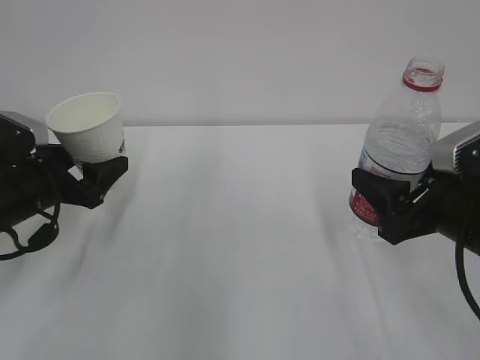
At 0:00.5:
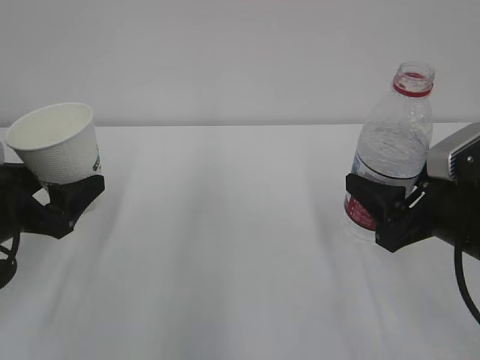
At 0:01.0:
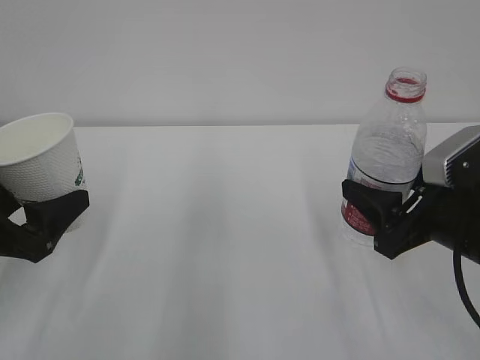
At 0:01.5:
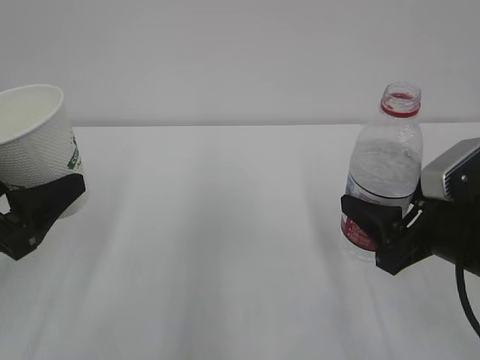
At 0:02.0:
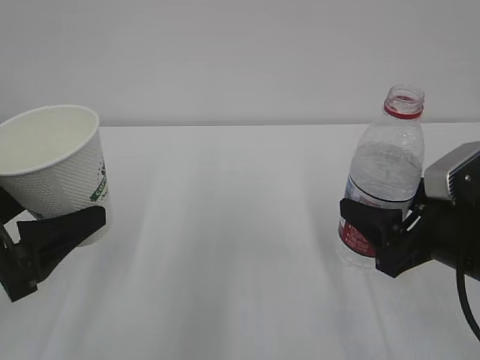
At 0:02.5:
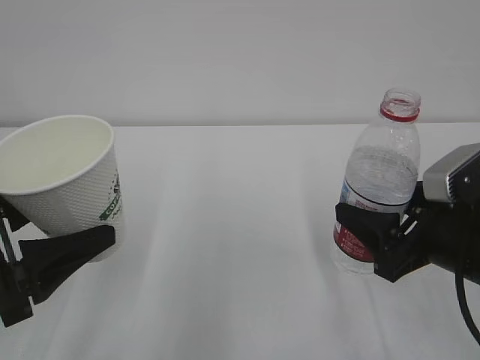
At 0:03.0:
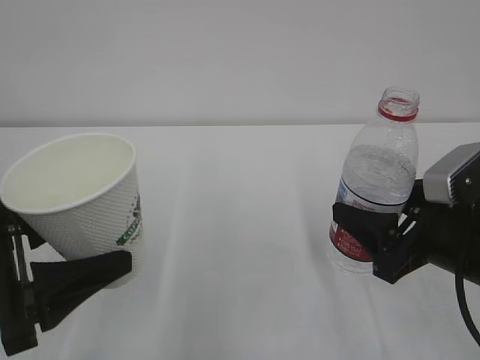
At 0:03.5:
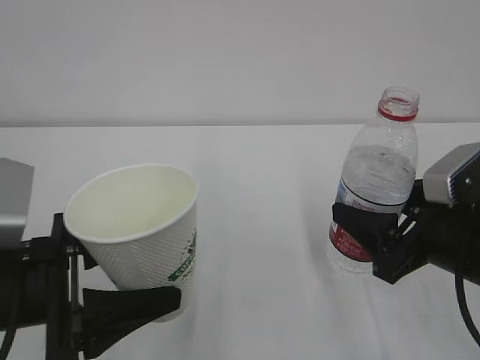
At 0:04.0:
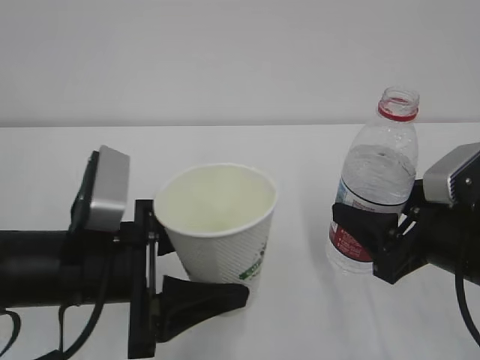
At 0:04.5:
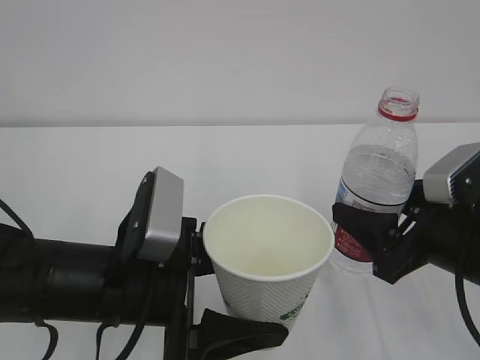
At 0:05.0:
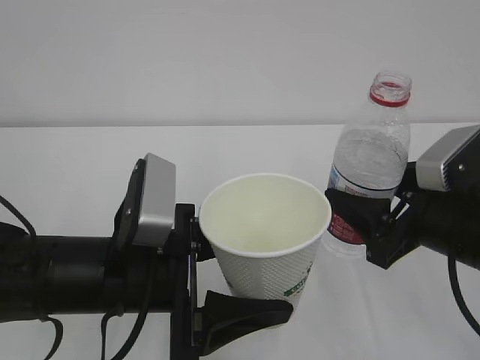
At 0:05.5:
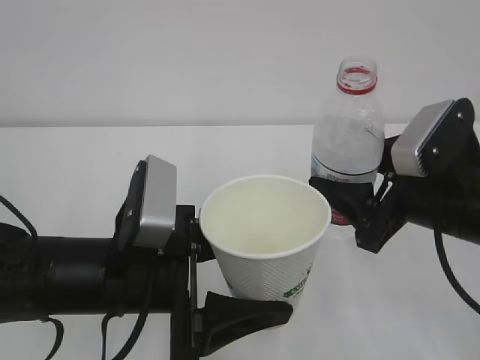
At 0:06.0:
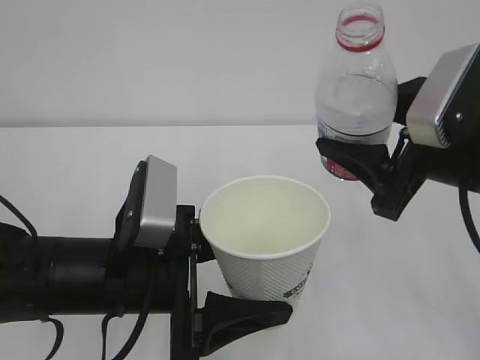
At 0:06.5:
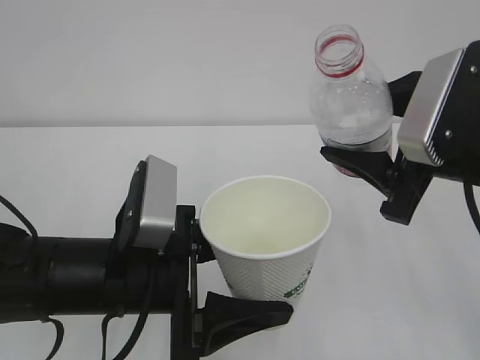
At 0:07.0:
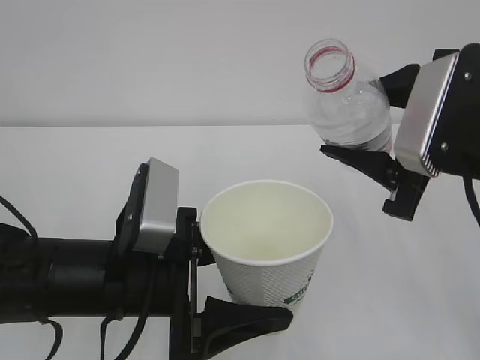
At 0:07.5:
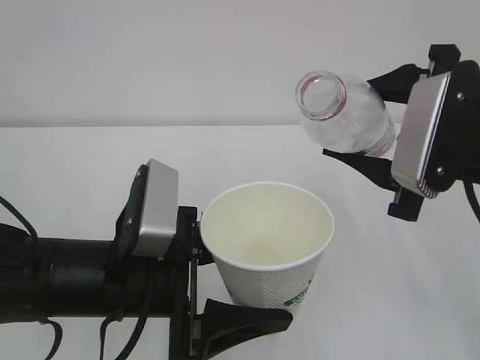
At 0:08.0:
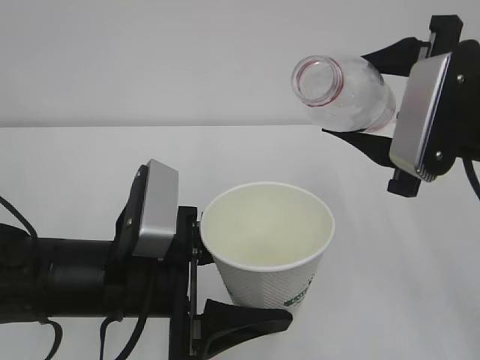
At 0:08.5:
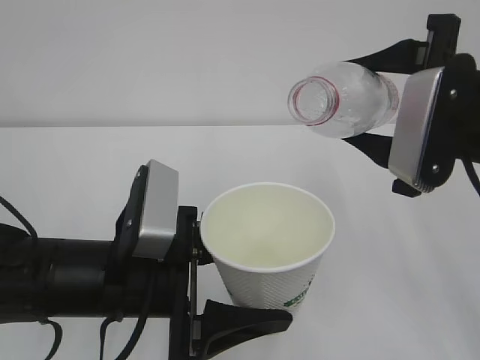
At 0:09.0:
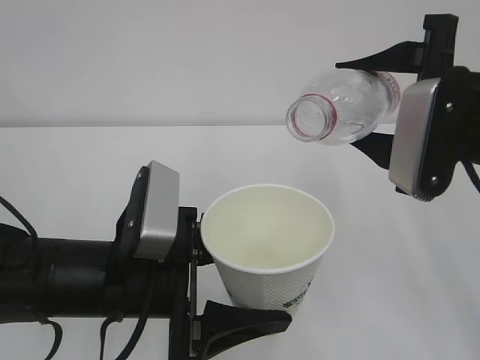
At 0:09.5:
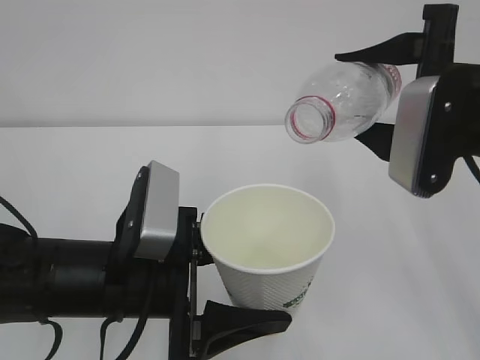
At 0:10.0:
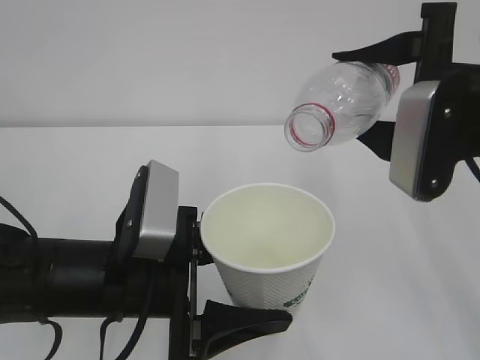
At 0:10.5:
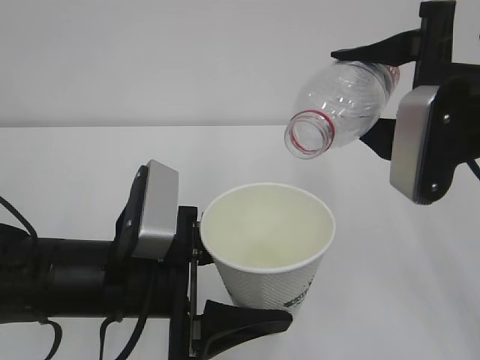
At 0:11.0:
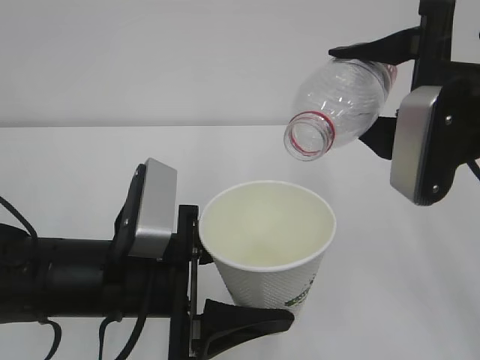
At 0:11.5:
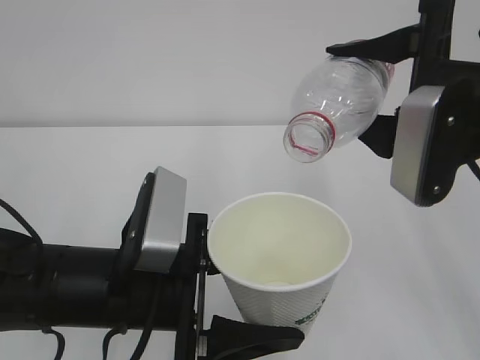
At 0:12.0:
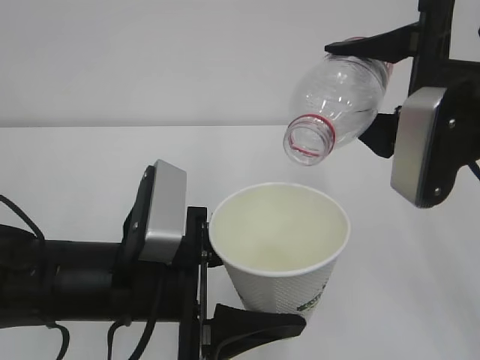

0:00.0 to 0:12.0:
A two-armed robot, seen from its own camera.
0:00.0 to 0:02.0: The left gripper moves backward and upward, about 15 cm.
0:02.0 to 0:04.0: The left gripper is displaced to the right by roughly 10 cm.
0:04.0 to 0:06.0: The right gripper heads upward, covering about 10 cm.
0:08.0 to 0:10.0: The grippers move only a little.
0:10.0 to 0:12.0: The grippers move only a little.

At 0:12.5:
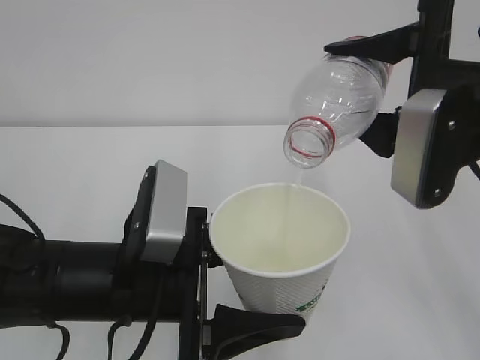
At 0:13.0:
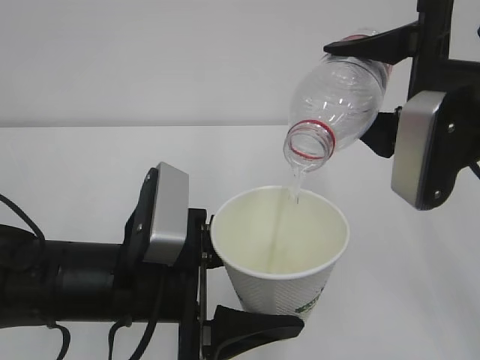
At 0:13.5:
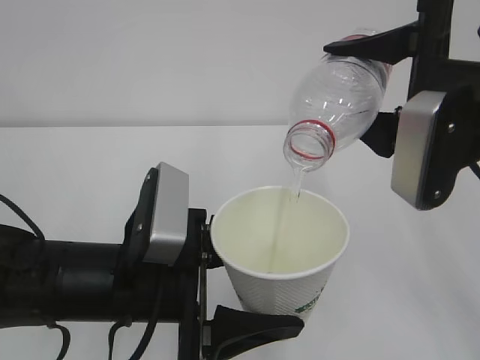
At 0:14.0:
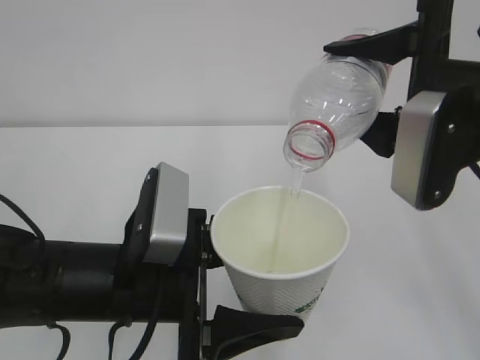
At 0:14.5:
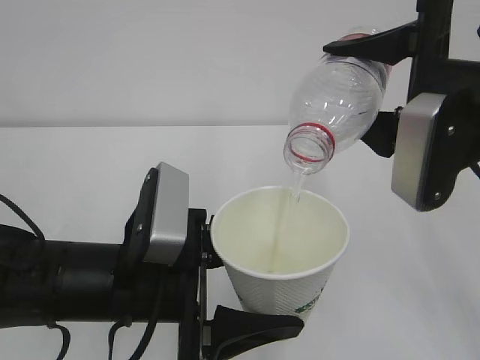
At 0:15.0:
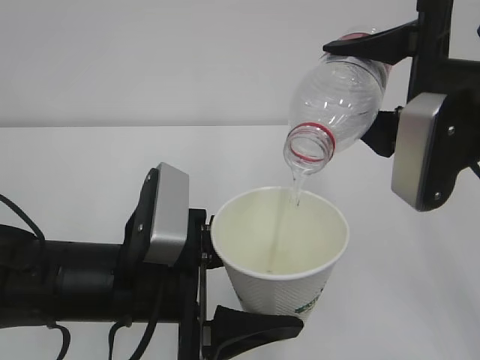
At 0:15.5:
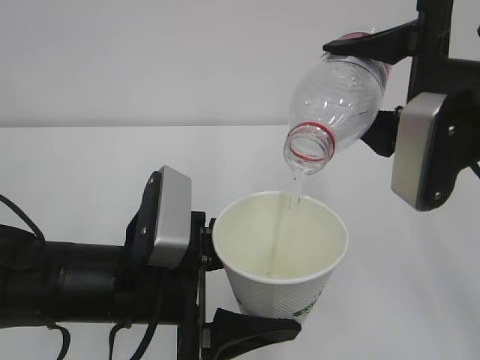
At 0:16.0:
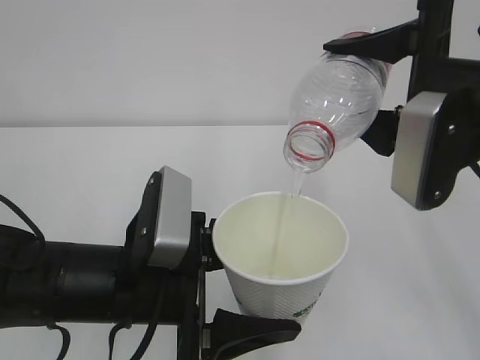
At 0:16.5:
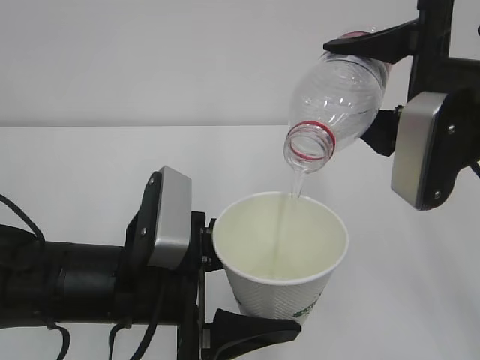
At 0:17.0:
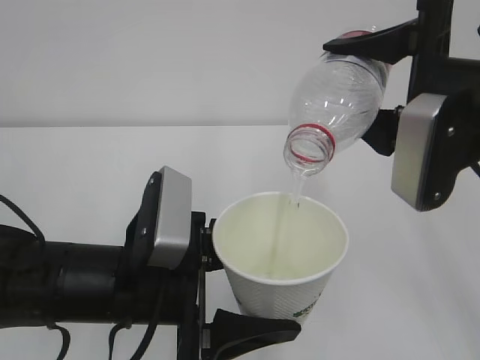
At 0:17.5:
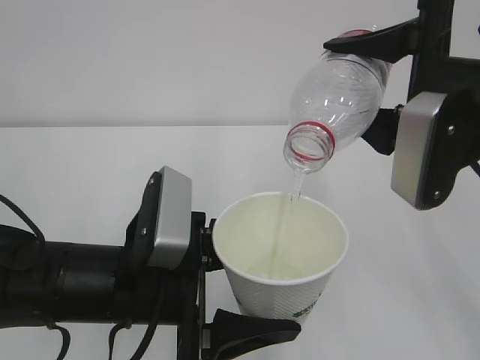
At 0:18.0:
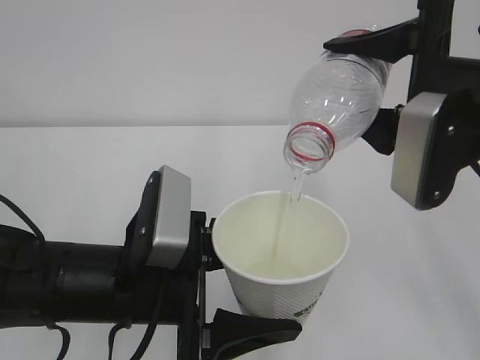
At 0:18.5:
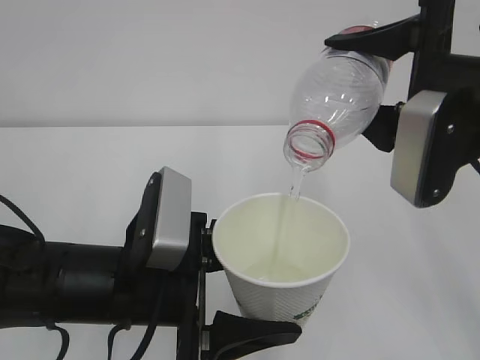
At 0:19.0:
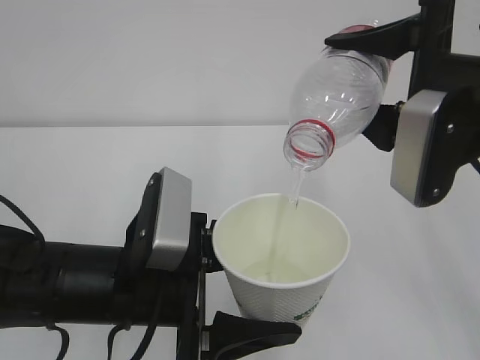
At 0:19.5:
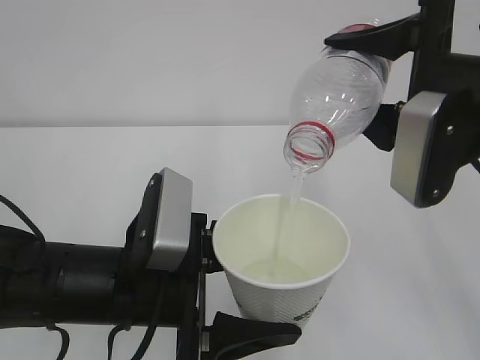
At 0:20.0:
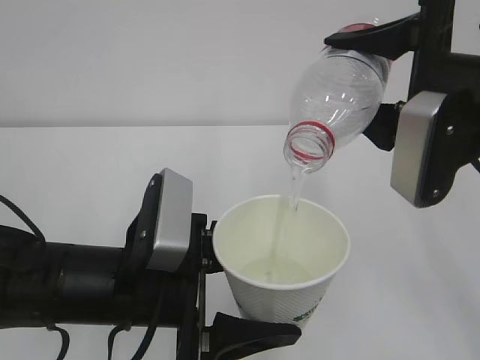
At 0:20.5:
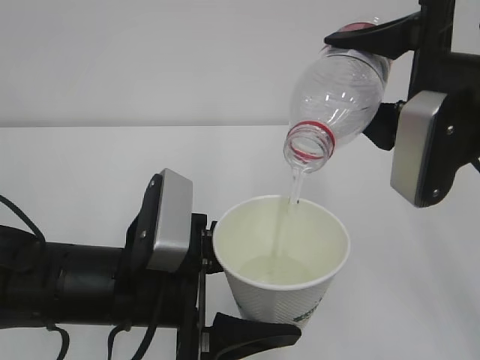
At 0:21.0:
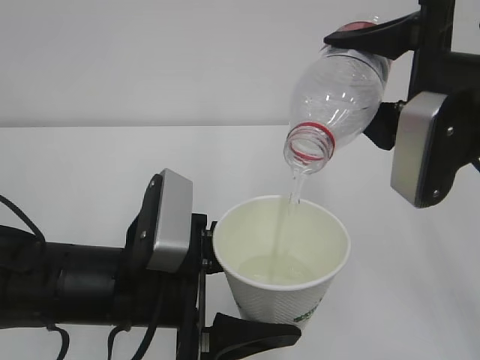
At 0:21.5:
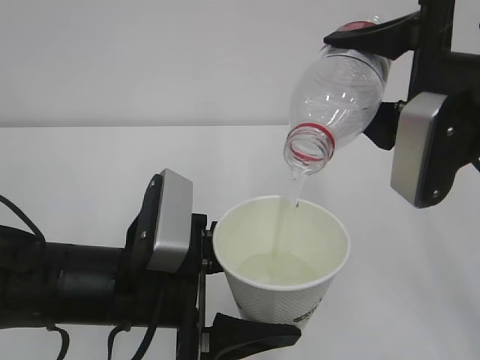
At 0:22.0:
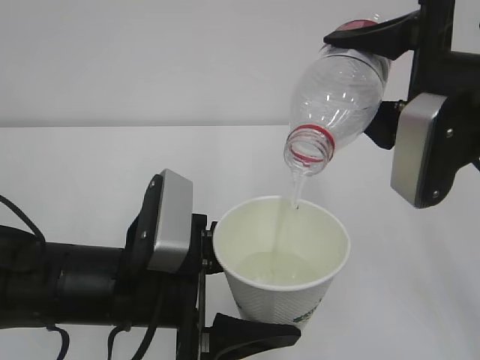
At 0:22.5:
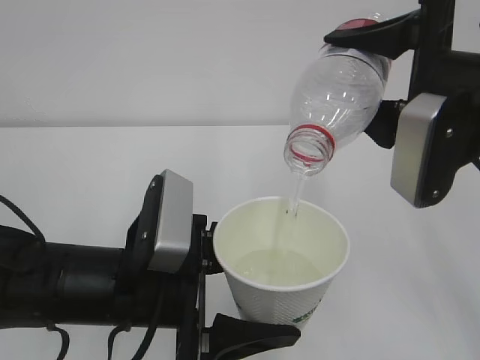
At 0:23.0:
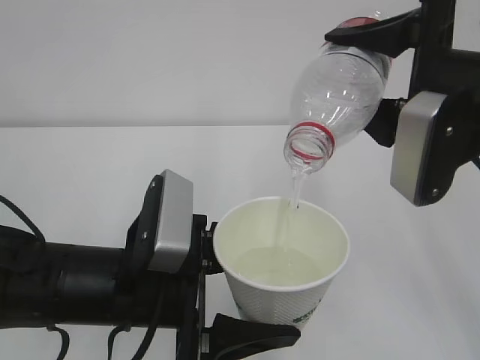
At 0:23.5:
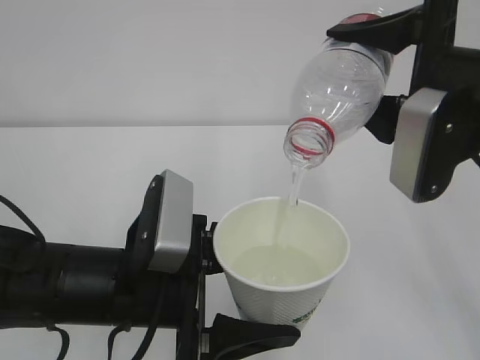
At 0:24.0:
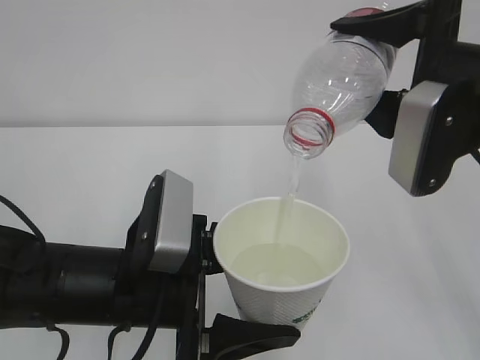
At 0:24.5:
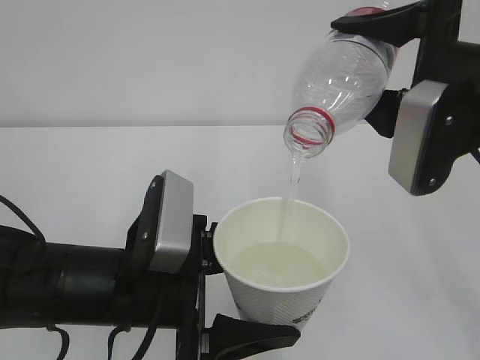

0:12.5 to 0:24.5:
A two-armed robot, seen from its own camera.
0:12.5 to 0:18.5: Both grippers stay about where they are.
0:18.5 to 0:24.5: Both grippers stay about where they are.

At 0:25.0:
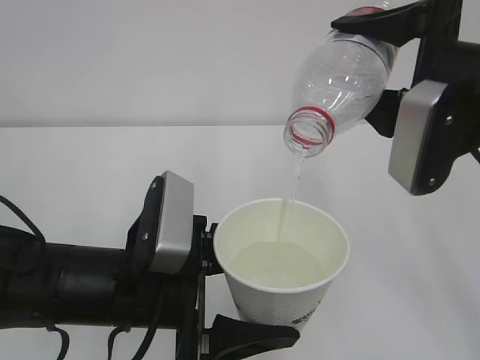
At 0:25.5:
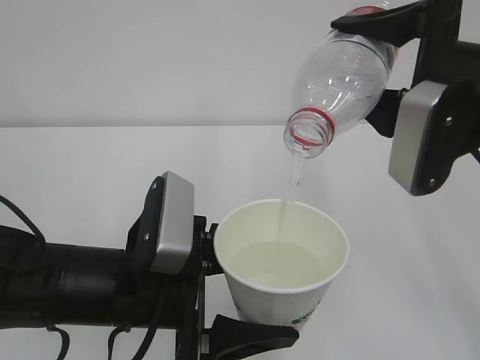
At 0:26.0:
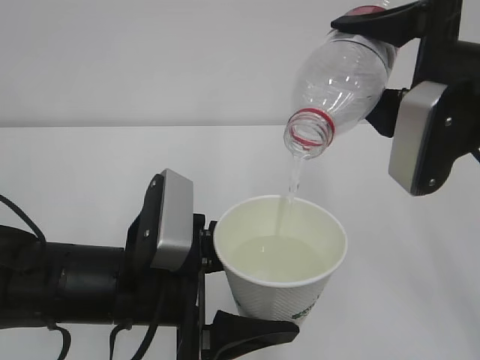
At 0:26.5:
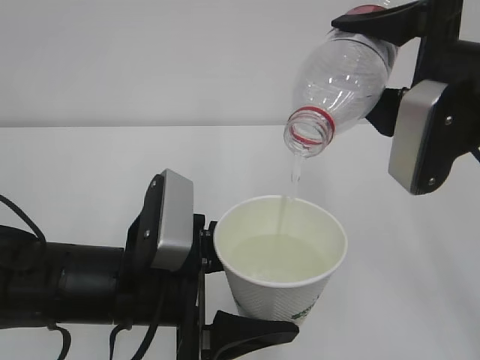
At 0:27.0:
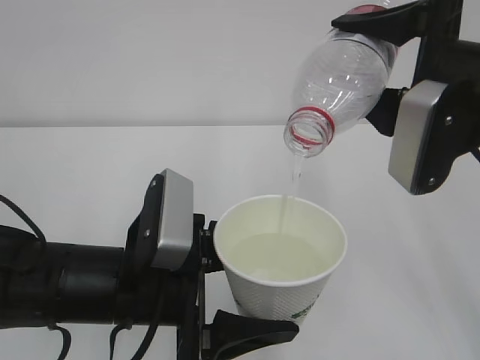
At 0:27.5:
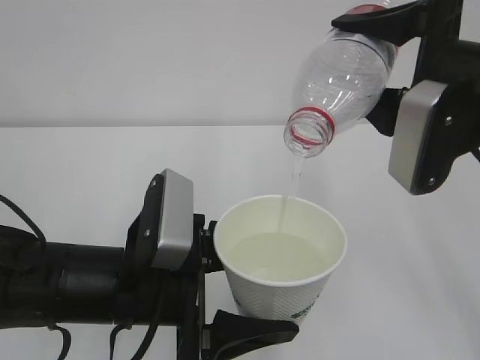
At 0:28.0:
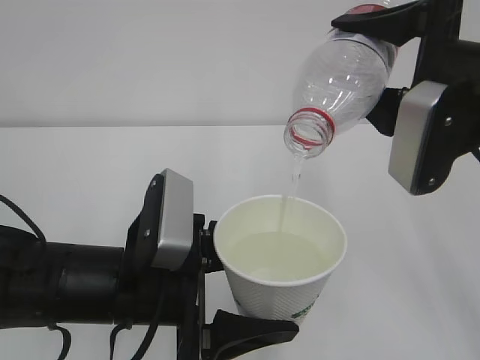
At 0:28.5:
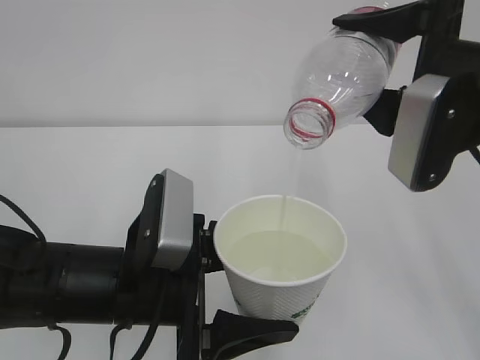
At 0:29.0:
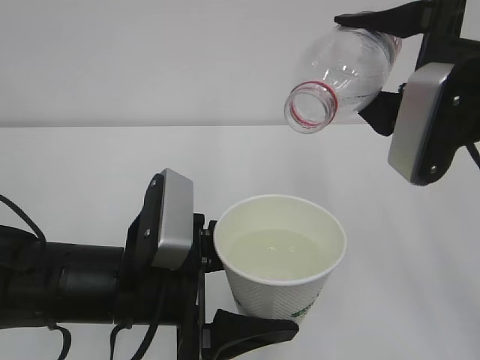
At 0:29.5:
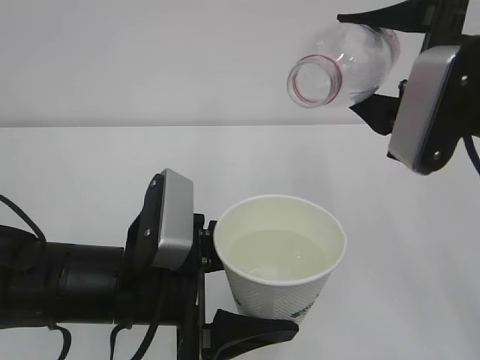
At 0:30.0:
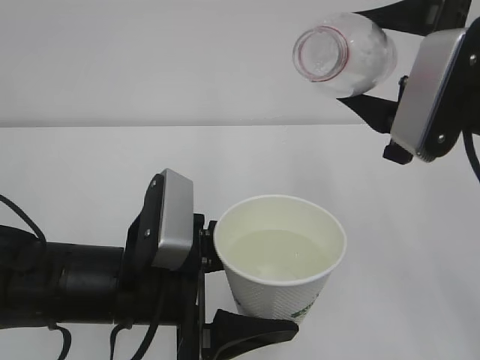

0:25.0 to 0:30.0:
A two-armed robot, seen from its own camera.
0:25.0 to 0:27.5: Neither gripper changes place.
